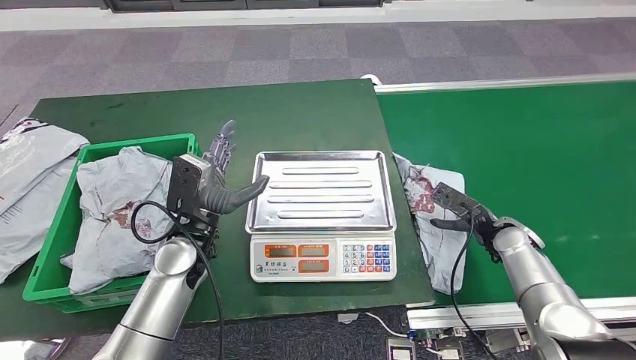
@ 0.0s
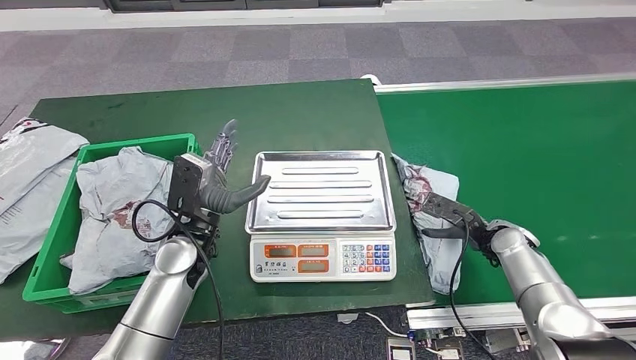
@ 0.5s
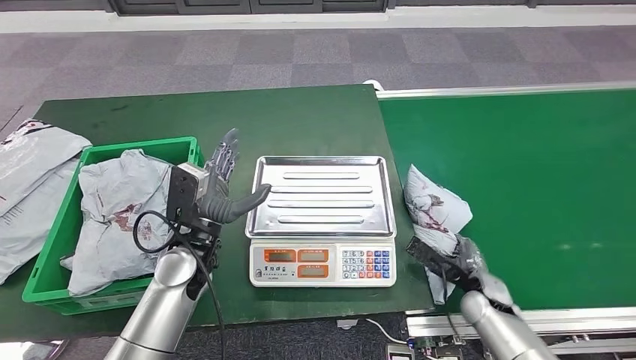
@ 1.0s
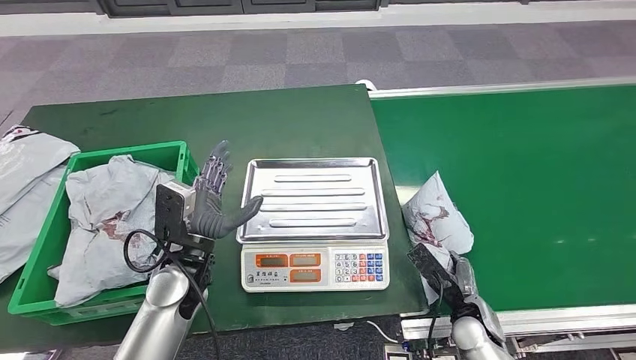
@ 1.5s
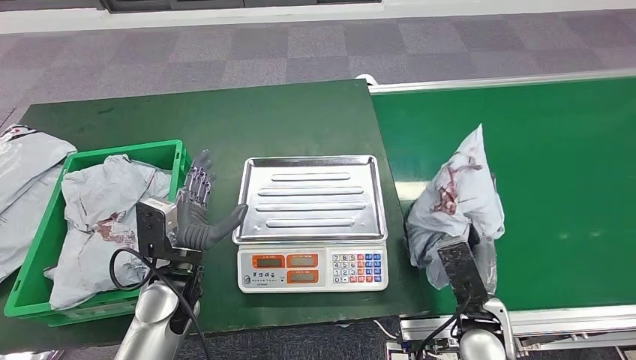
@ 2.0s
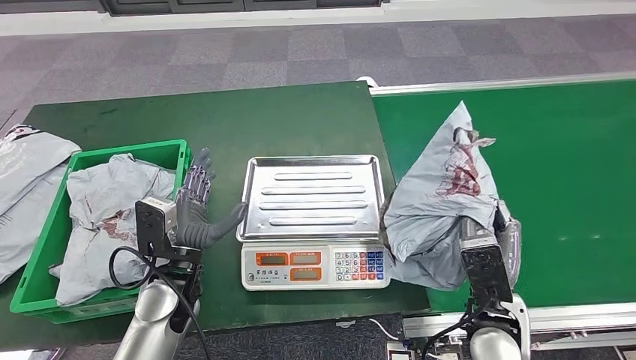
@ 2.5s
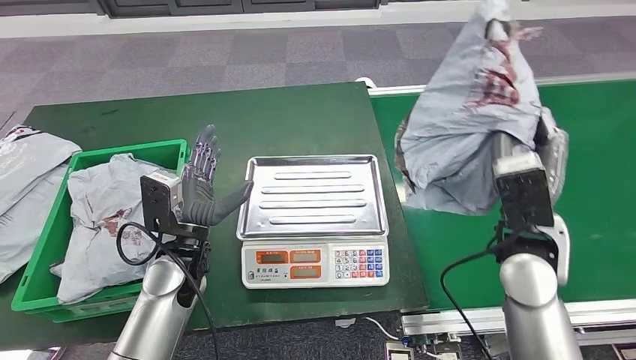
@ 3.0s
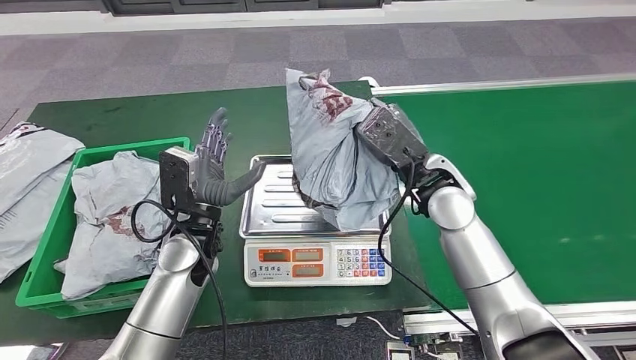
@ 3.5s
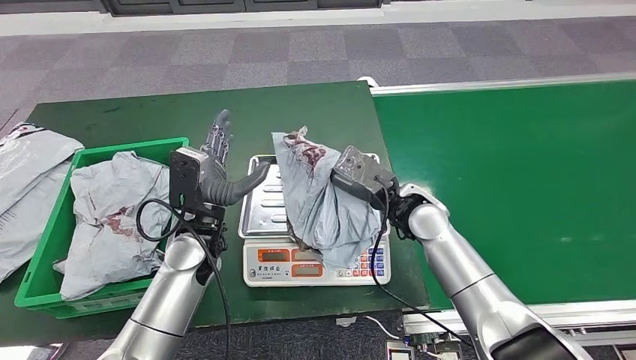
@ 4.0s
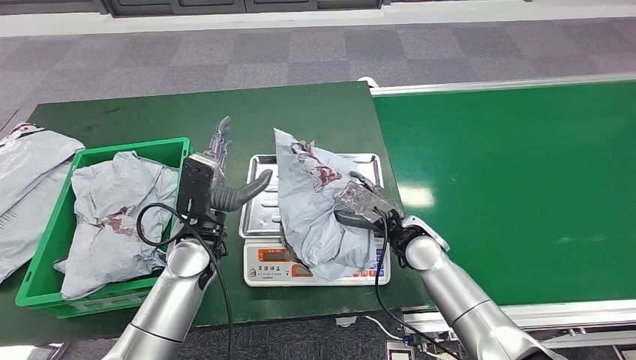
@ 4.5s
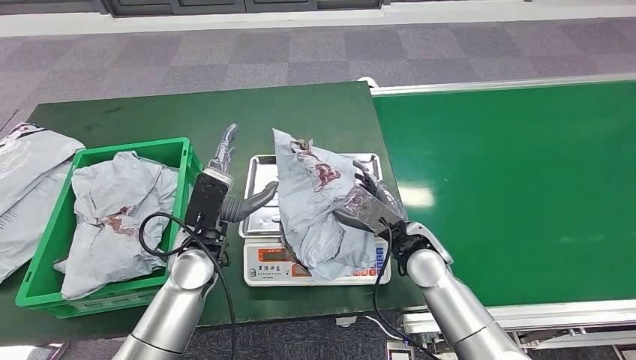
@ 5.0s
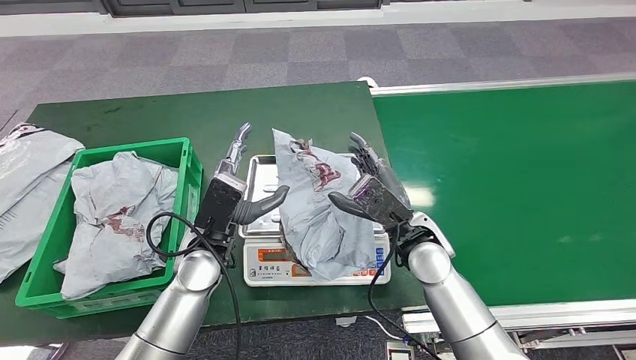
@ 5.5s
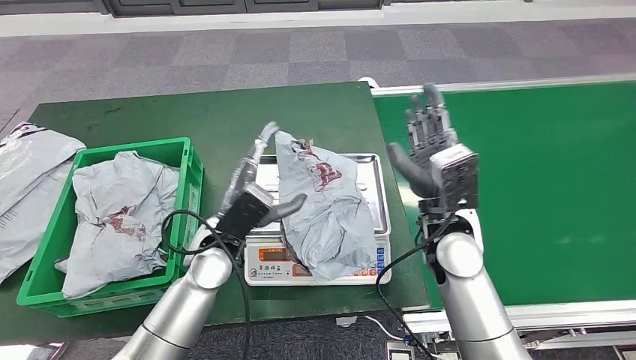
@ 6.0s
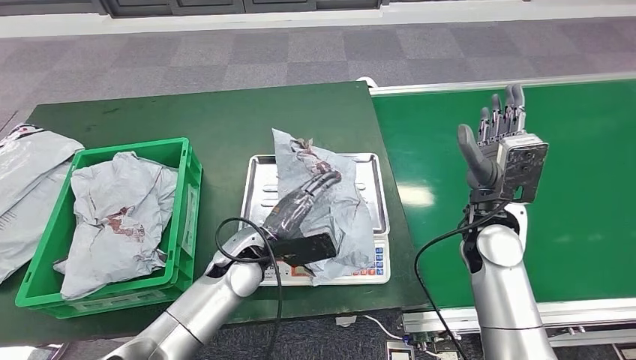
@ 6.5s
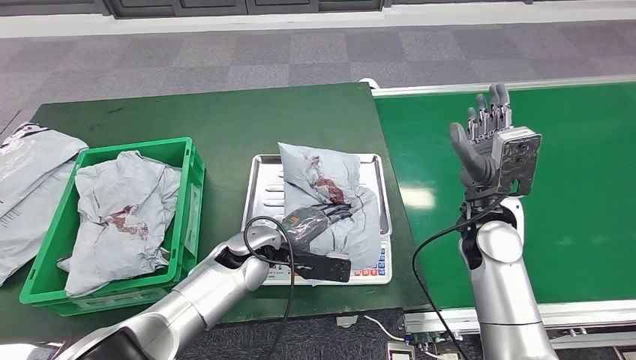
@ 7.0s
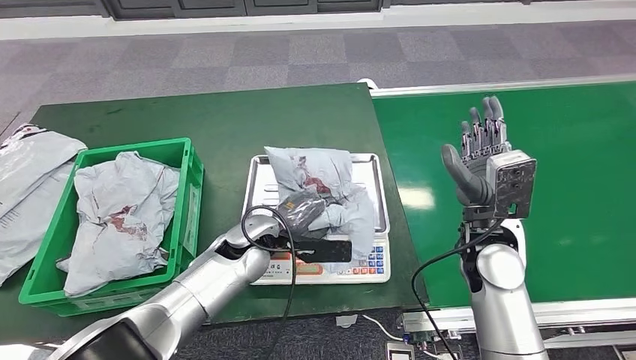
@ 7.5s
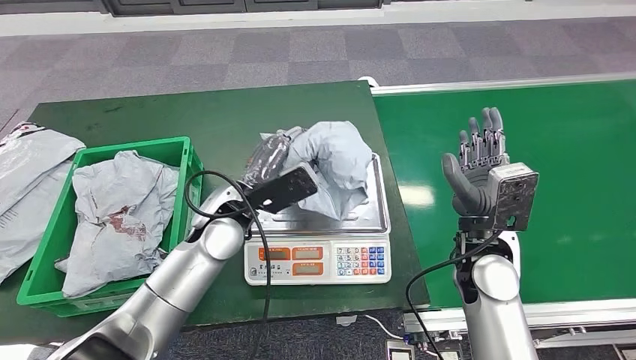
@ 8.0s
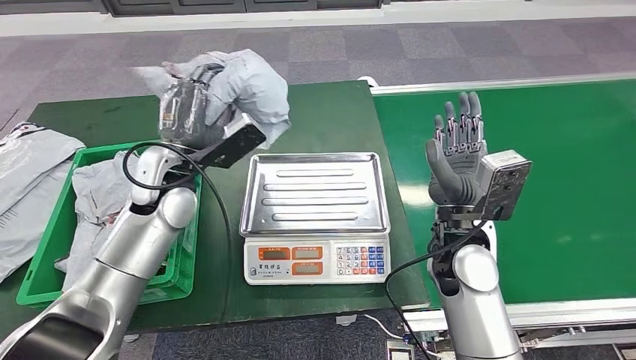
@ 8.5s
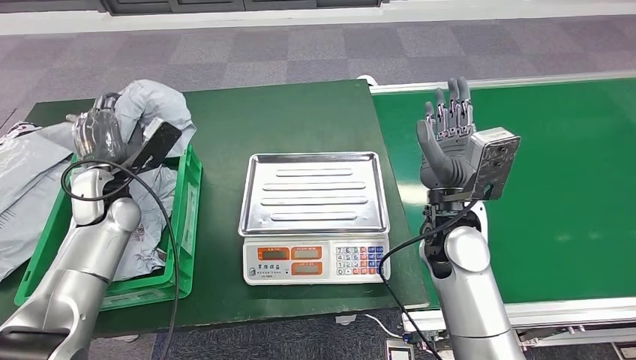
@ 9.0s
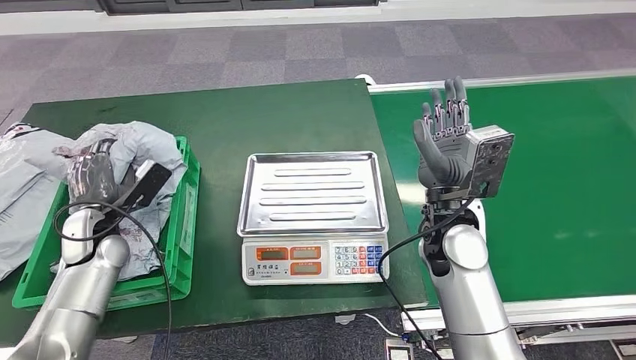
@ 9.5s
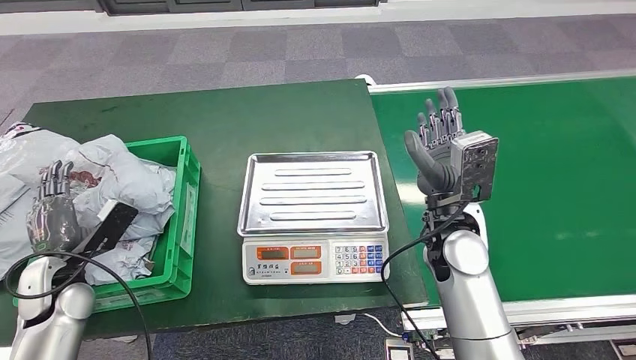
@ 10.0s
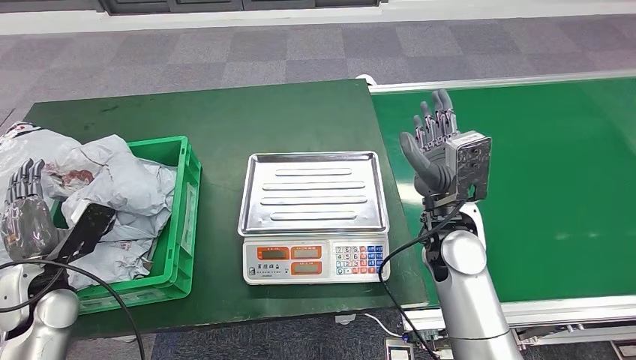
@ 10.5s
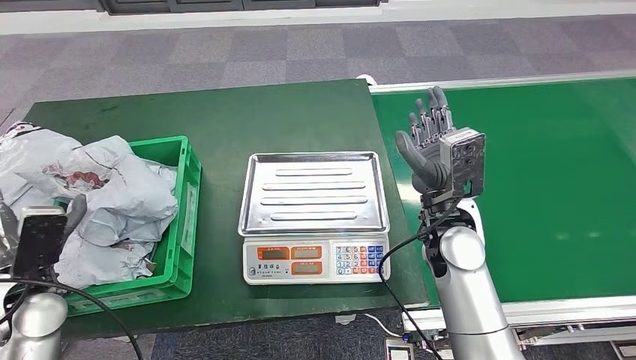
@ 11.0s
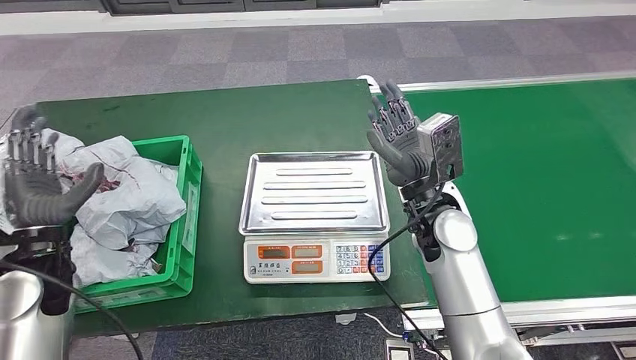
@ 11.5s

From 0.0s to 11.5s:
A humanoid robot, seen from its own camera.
Step, from 2.0s to 2.5s: Pick up the parcel from the conveyor belt.
Step, from 5.5s to 6.0s: Place the parcel onto the inbound machine.
